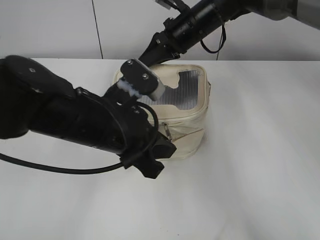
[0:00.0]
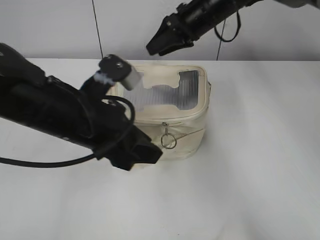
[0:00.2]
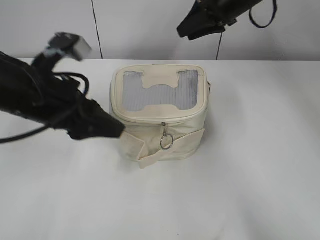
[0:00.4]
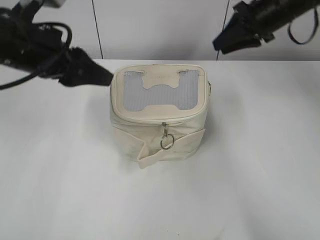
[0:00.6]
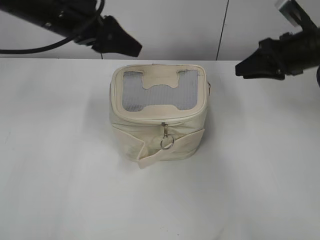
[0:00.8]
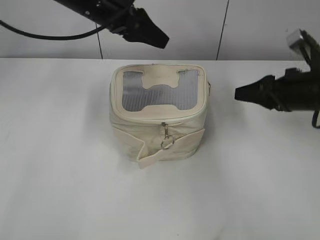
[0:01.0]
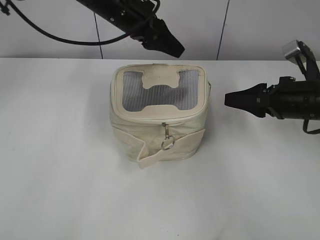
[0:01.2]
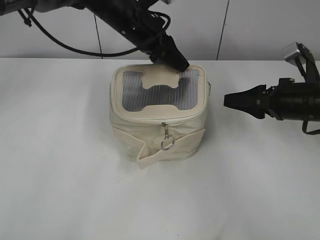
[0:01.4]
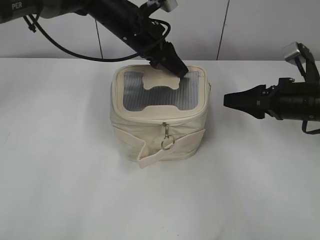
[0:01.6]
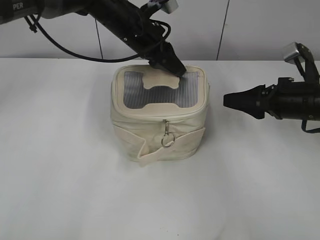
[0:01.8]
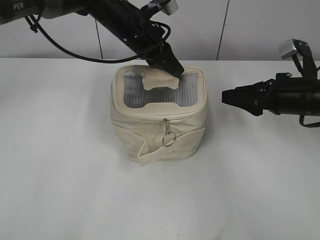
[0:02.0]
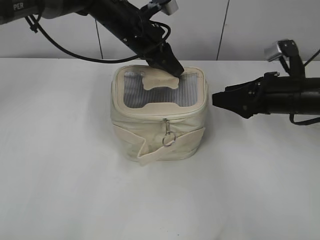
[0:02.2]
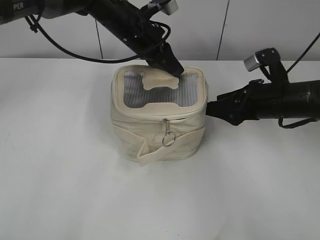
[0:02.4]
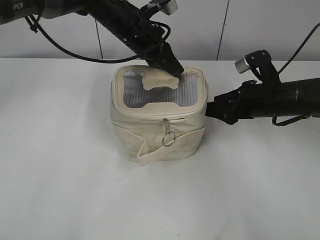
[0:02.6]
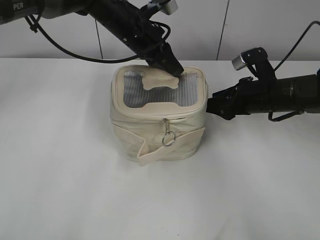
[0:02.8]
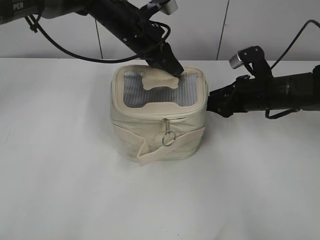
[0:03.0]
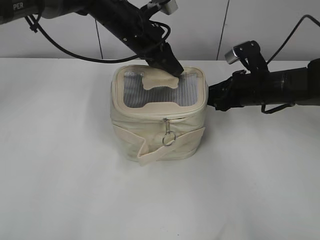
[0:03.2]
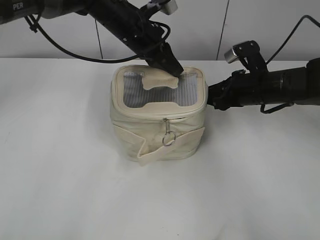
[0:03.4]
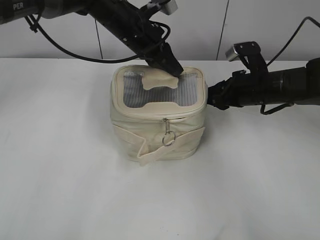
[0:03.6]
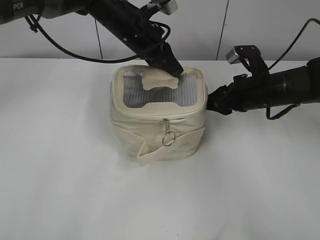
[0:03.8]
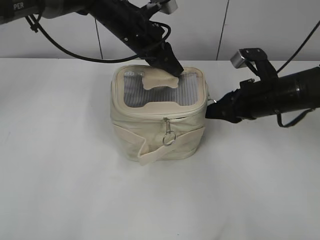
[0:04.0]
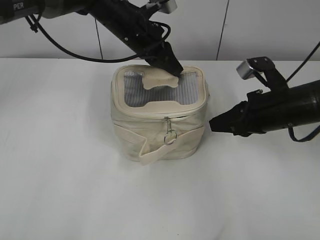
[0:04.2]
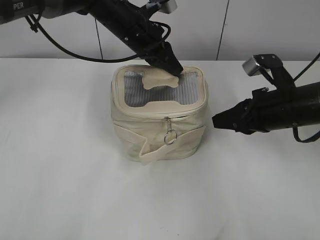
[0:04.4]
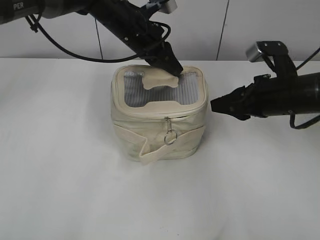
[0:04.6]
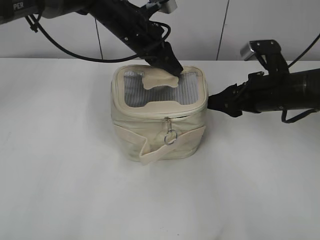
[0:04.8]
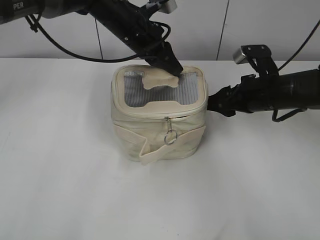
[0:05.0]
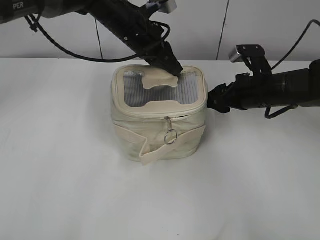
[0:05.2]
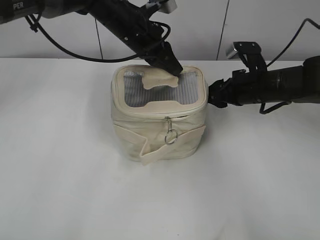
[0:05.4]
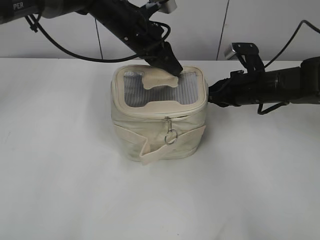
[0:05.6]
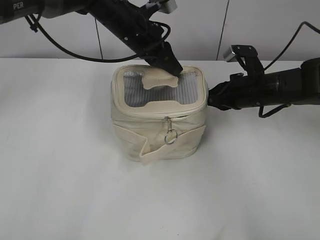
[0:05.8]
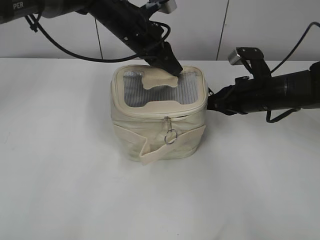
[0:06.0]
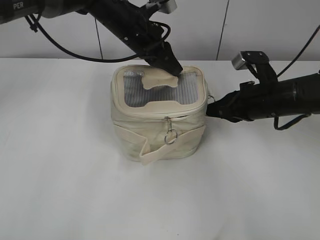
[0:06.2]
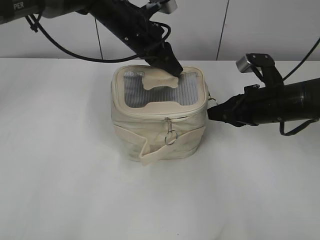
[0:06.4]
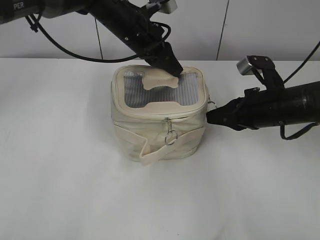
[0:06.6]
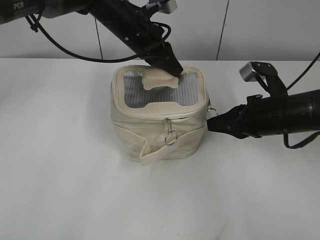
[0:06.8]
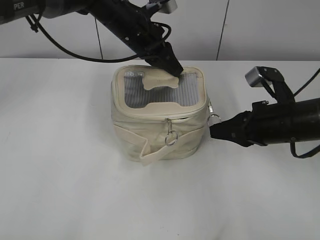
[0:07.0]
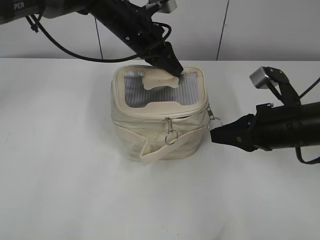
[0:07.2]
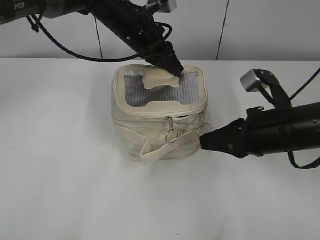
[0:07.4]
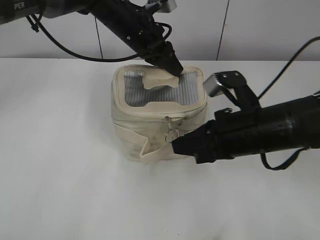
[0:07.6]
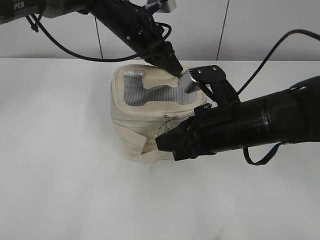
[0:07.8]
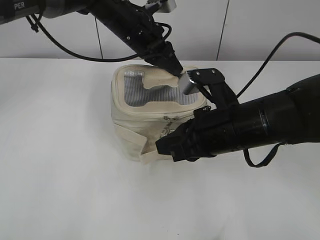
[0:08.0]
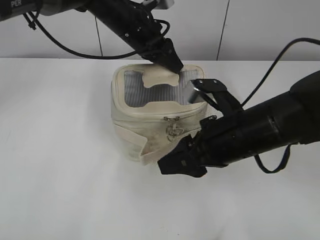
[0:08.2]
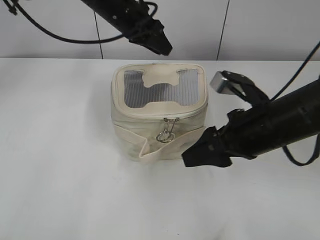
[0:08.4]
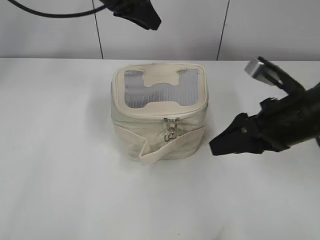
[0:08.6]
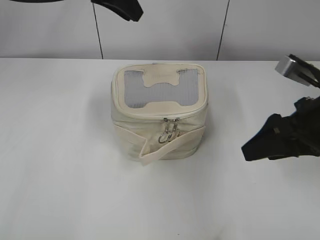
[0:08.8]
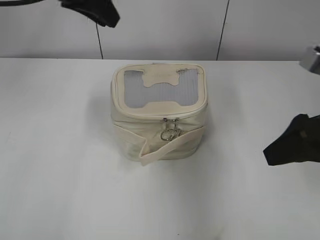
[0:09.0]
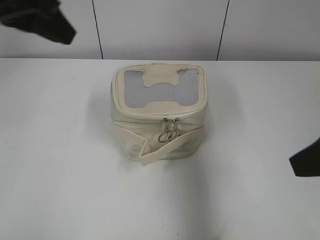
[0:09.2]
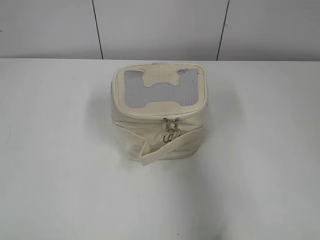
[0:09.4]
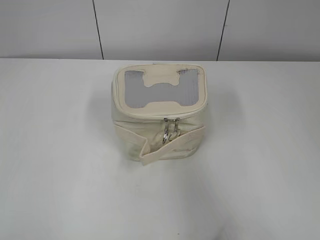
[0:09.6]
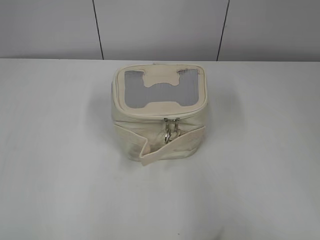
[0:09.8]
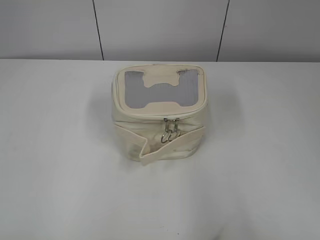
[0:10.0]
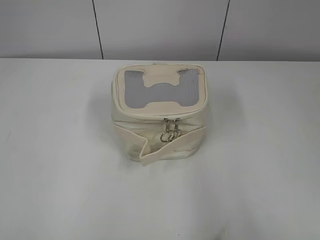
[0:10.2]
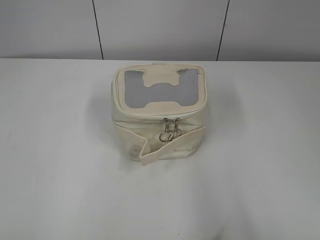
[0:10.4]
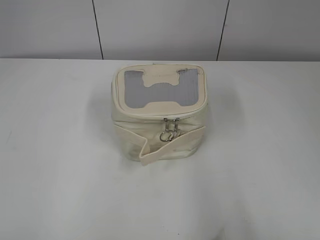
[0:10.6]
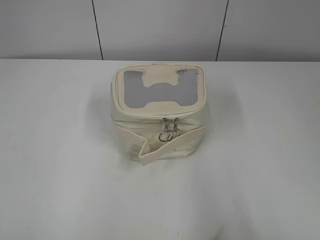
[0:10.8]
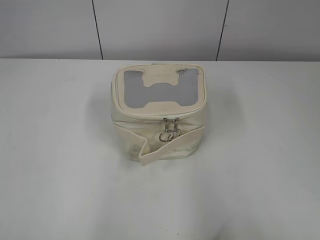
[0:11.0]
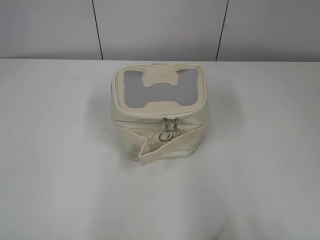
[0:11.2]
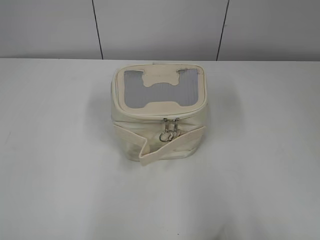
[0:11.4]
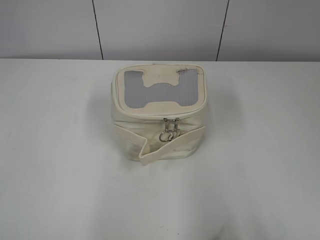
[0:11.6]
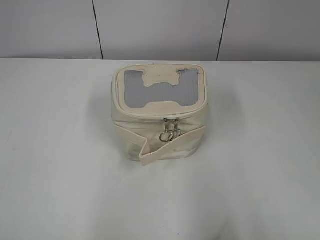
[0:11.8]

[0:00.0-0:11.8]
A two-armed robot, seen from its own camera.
Step, 0:00.2 to 0:08.0: Zip up the bag with your right hand.
0:00.0 to 0:01.4: The right gripper goes approximately 25 cm to the right and backward, and opens its fingers; the left gripper travels forward by some 20 cm, and opens up.
0:01.4 to 0:03.0: The right gripper moves approximately 5 cm, while the left gripper closes up.
0:03.0 to 0:04.4: The right gripper heads backward, covering approximately 5 cm, and closes up.
0:04.4 to 0:06.0: The right gripper is displaced forward by about 5 cm, and opens and closes again.
0:06.0 to 0:07.4: The right gripper is displaced backward by approximately 10 cm.
0:07.4 to 0:08.8: The right gripper travels upward by roughly 5 cm, goes to the left and returns, about 10 cm each way, and opens up. Meanwhile the left gripper moves upward and to the left, roughly 15 cm.
0:08.8 to 0:10.4: The right gripper goes approximately 25 cm backward. Meanwhile the left gripper goes approximately 50 cm backward and to the left.

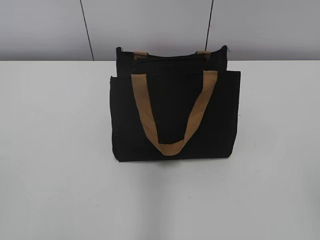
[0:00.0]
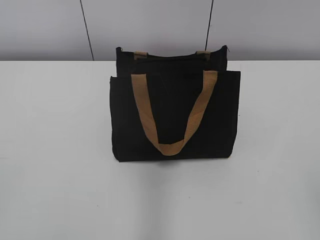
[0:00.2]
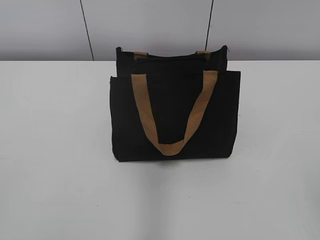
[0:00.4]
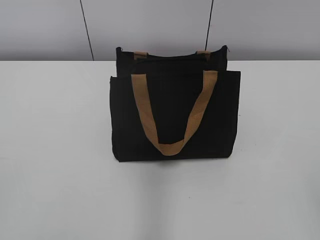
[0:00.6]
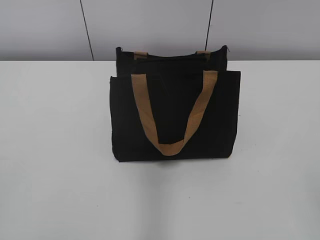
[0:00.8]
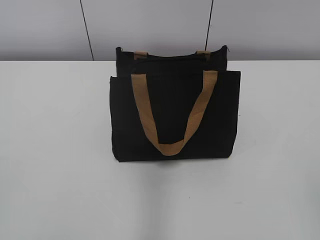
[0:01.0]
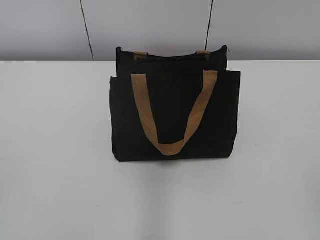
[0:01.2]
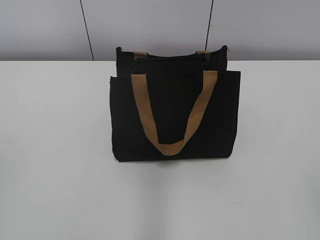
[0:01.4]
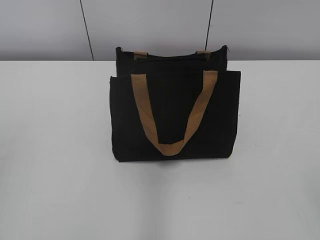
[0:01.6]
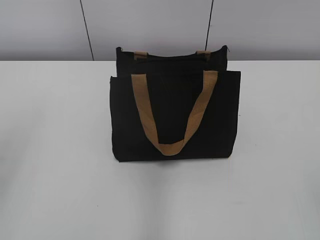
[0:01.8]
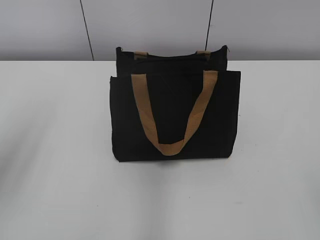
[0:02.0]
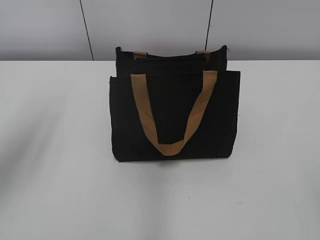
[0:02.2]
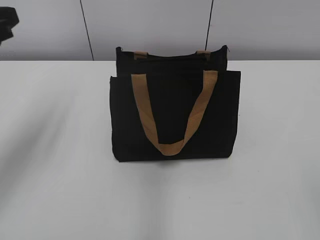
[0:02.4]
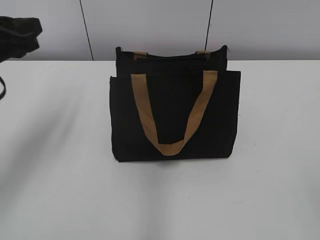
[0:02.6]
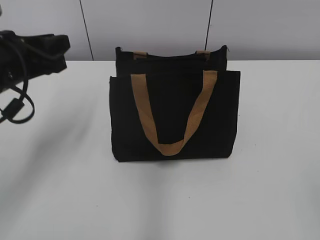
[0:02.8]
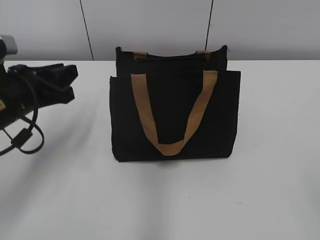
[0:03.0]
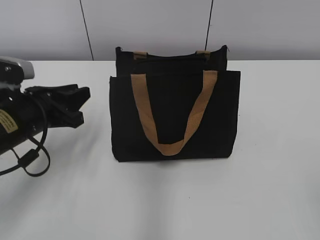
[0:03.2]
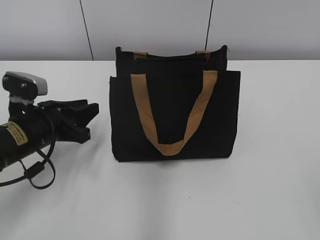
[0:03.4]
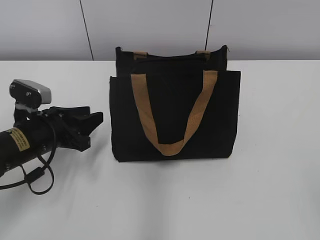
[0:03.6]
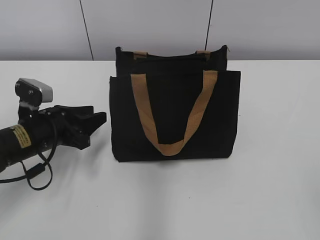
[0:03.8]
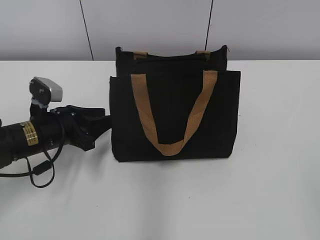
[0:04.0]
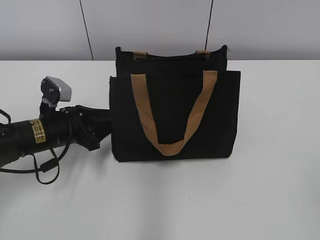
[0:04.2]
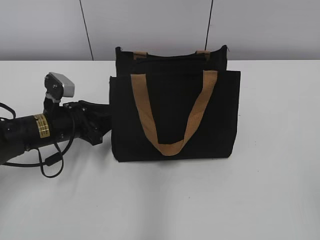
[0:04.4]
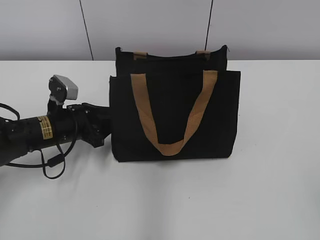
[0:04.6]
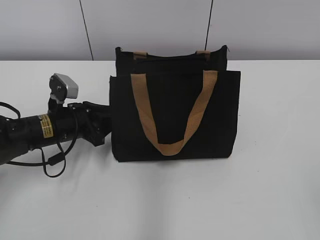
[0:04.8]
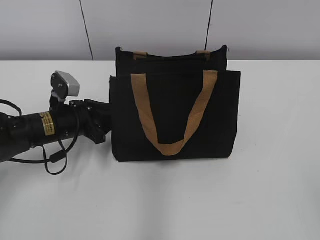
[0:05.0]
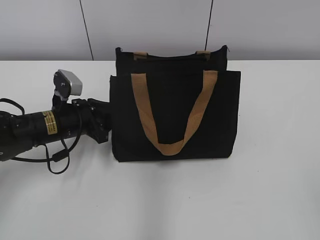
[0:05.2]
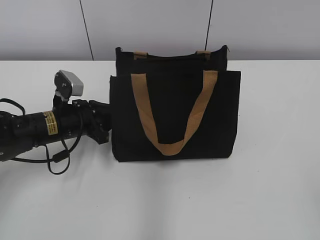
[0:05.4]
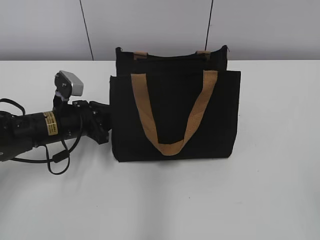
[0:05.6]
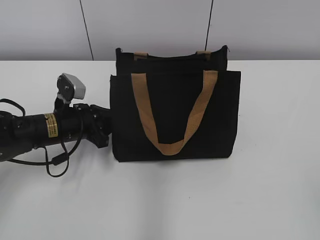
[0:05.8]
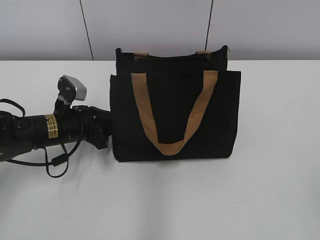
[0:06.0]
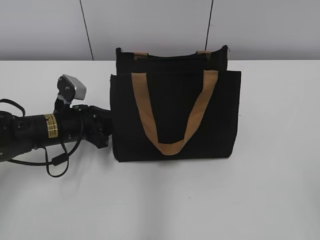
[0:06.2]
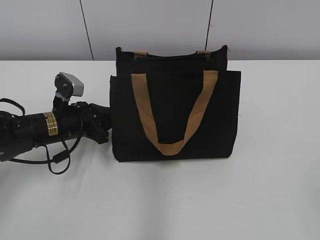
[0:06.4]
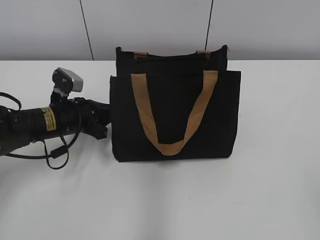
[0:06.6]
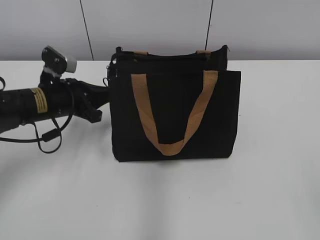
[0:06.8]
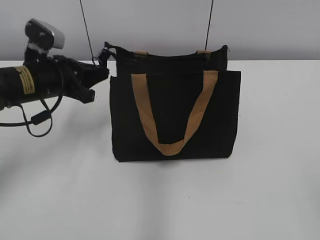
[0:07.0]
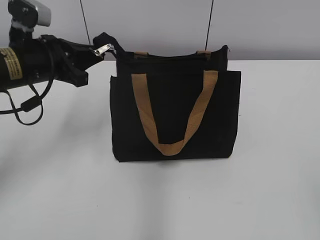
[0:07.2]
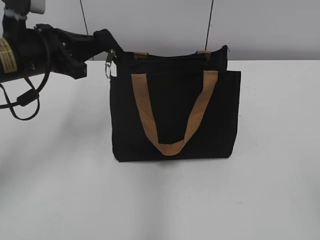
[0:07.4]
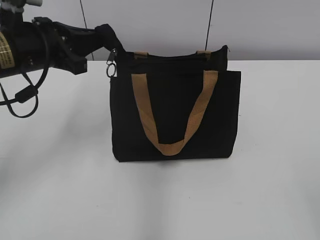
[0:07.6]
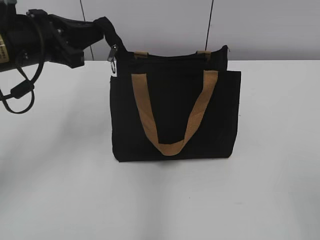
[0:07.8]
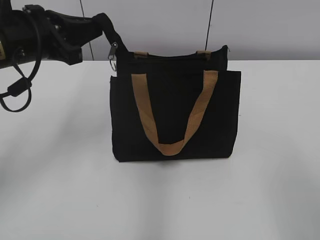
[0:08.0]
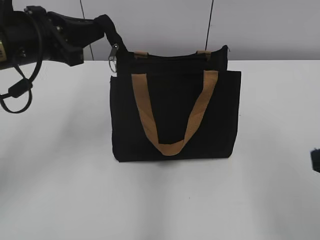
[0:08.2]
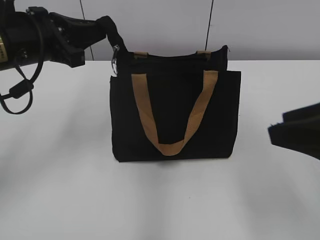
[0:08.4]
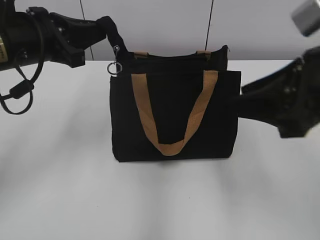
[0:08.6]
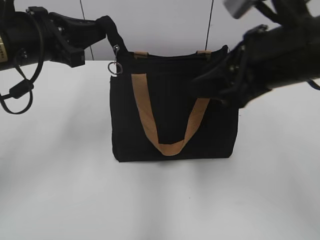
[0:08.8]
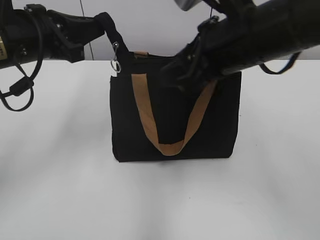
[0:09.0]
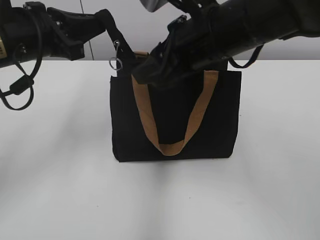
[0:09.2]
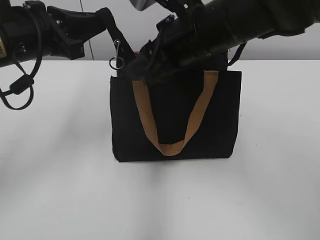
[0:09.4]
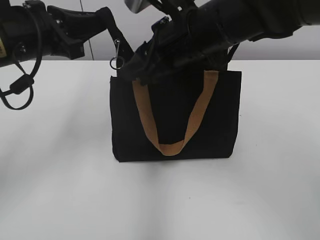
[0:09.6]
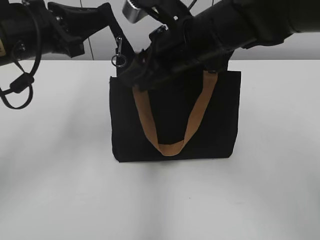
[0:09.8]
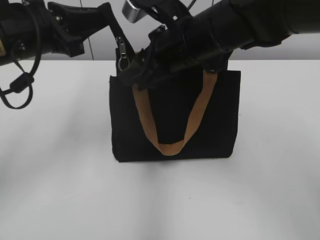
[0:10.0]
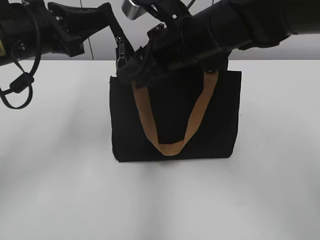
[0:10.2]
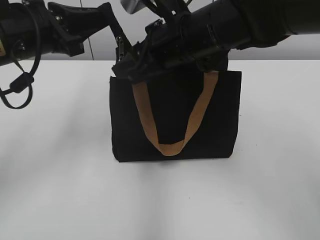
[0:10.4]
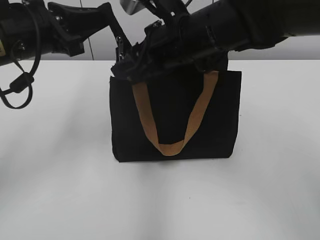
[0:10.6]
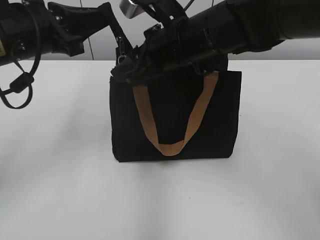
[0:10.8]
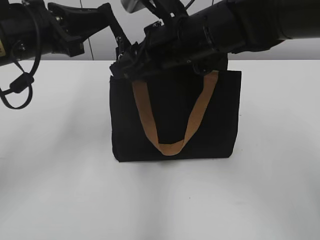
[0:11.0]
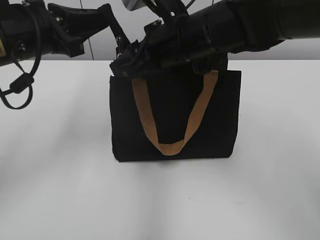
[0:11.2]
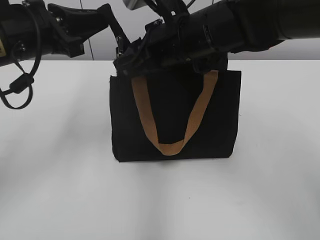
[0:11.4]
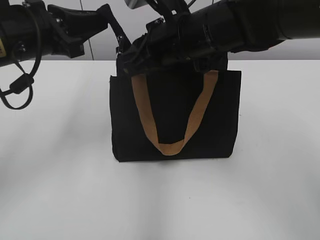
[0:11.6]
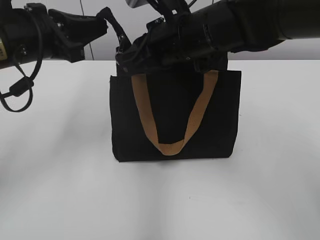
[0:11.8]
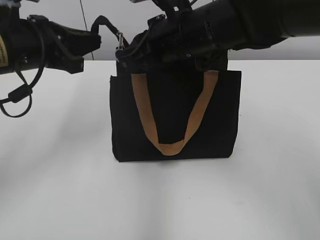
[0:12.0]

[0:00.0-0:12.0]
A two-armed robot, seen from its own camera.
0:01.6 to 0:03.0: The left gripper travels forward, downward and to the right by some 30 cm.
0:03.0 to 0:04.4: The left gripper moves downward, approximately 10 cm.
0:04.4 to 0:06.0: The left gripper closes its fingers.
0:06.0 to 0:07.6: The left gripper travels upward by about 15 cm, and closes up.
0:07.6 to 0:09.0: The right gripper heads forward and to the left, covering roughly 30 cm.
0:09.0 to 0:10.4: The right gripper heads forward and to the left, covering about 10 cm.
0:10.4 to 0:12.0: The right gripper closes up.
